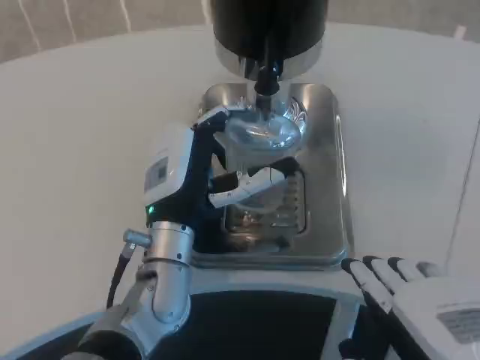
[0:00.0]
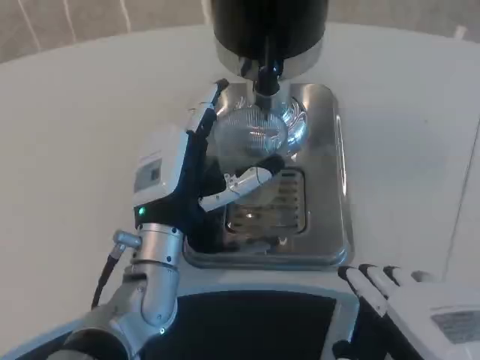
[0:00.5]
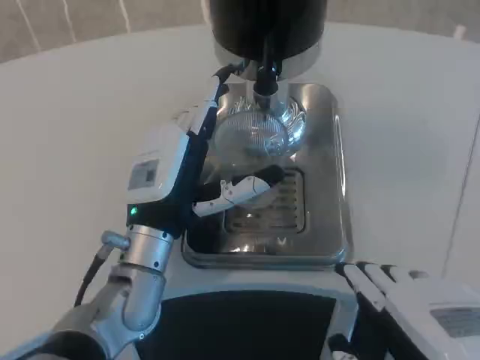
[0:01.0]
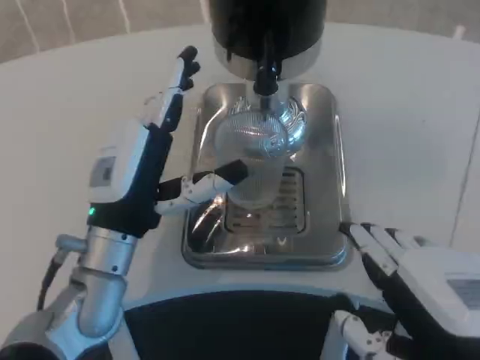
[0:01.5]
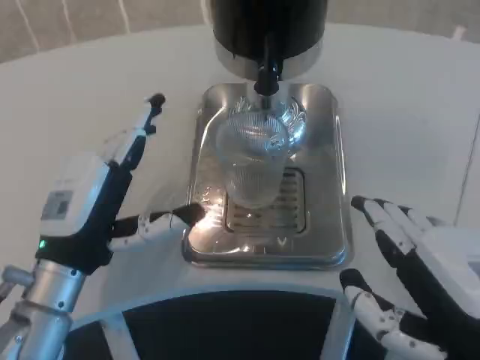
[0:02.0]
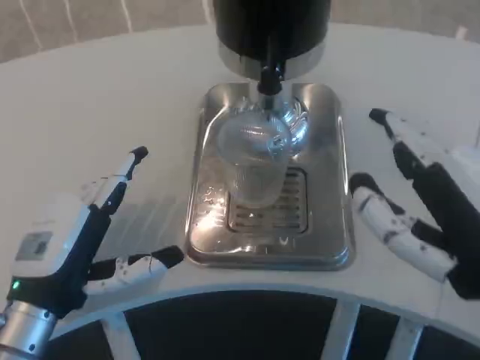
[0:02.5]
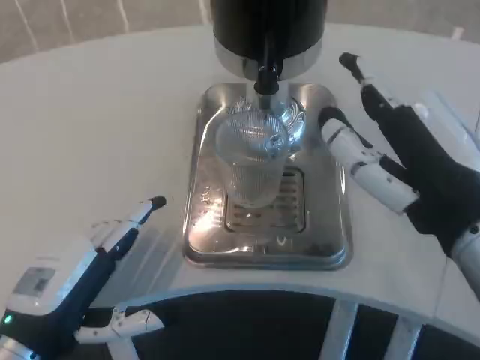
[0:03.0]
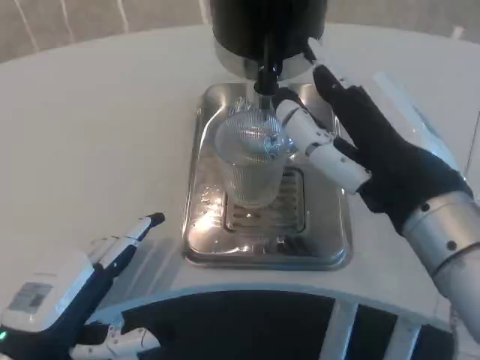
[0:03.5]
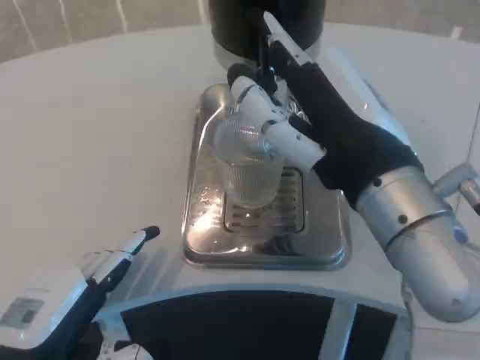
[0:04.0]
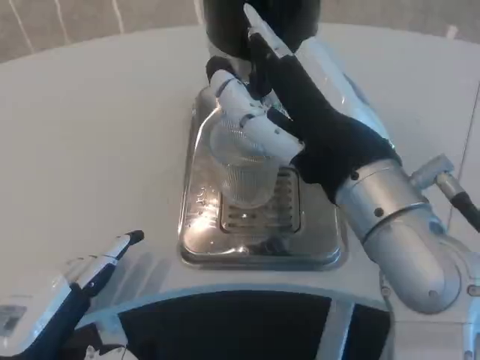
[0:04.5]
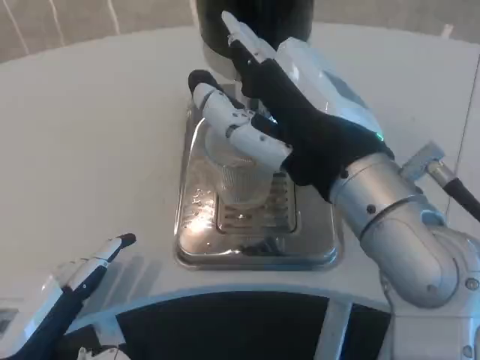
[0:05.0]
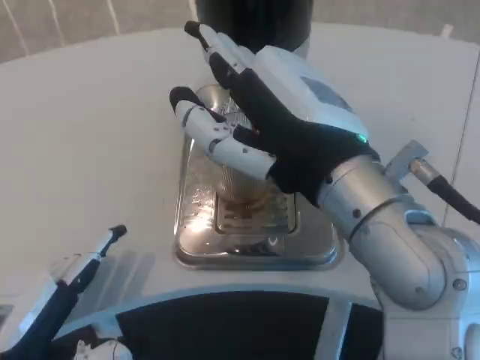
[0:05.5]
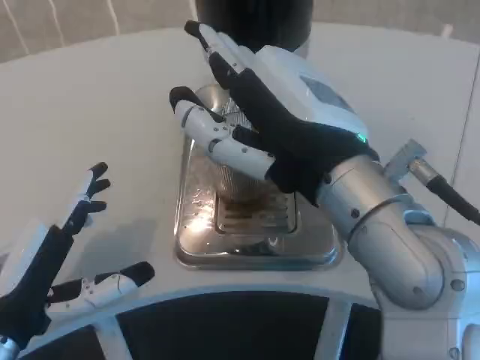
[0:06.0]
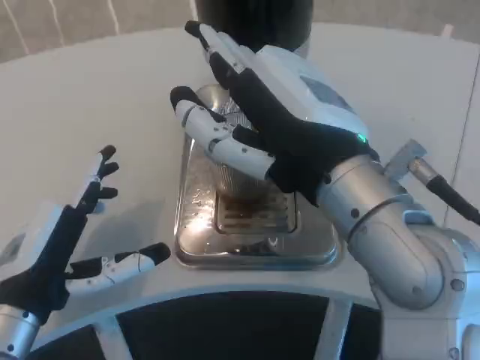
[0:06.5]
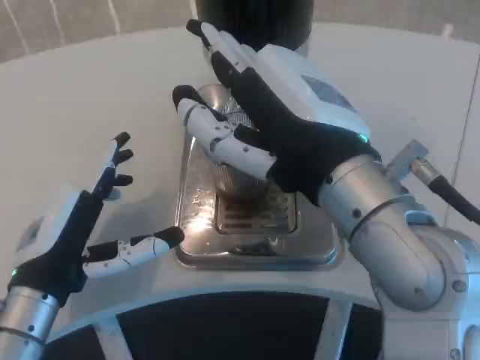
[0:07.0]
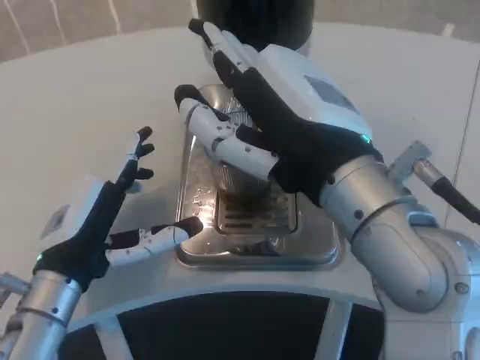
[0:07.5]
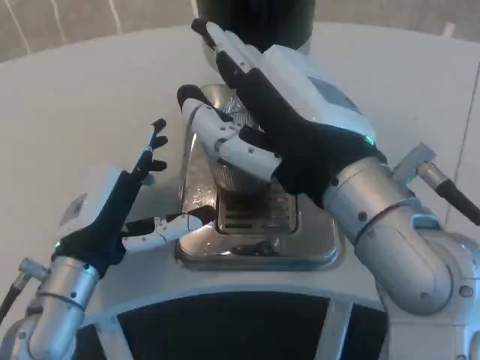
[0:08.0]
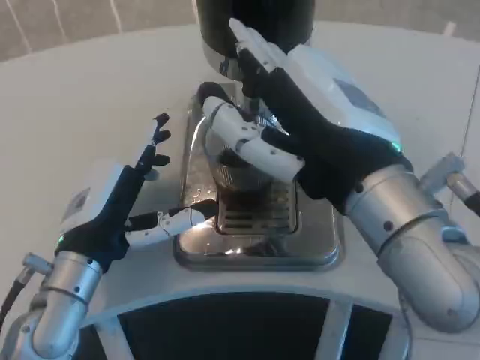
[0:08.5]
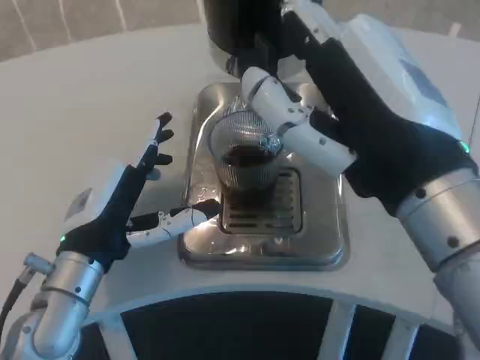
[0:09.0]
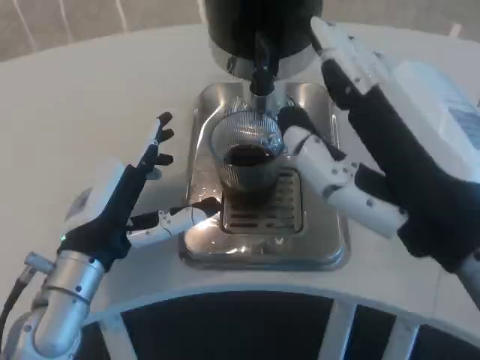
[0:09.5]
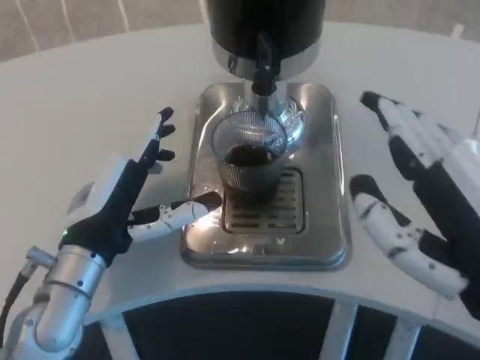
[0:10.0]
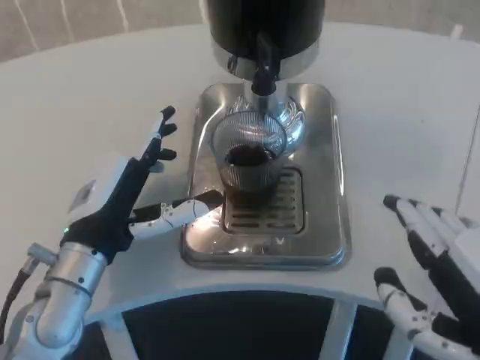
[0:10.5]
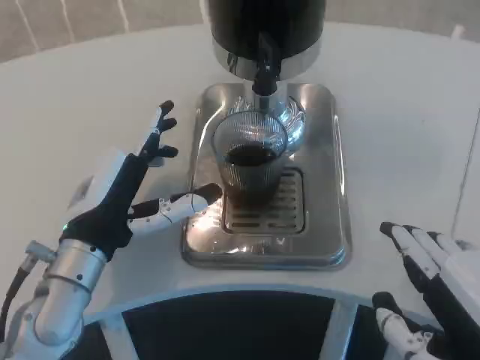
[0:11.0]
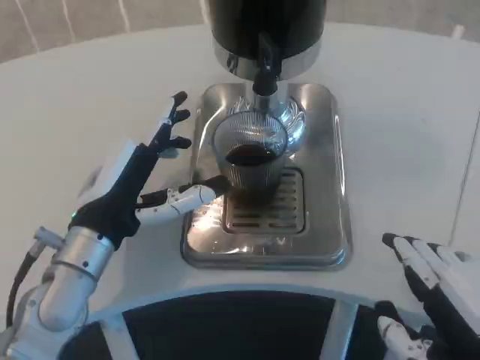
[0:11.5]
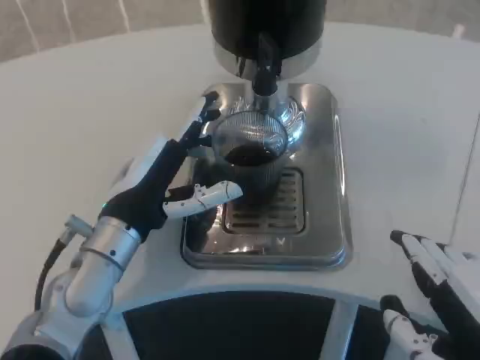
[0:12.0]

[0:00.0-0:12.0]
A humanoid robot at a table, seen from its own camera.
Task of the whole recording: Grasp the cup under the faucet to collect the drink, then remove the cup.
0:00.0 to 0:02.0: The left hand is displaced to the left by about 10 cm.
0:02.0 to 0:04.0: The left hand goes about 10 cm backward. The right hand is displaced forward, to the left and upward by approximately 15 cm.
0:06.0 to 0:08.0: The left hand heads forward and to the right, covering approximately 10 cm.
0:08.0 to 0:10.0: The right hand travels to the right and backward by roughly 15 cm.

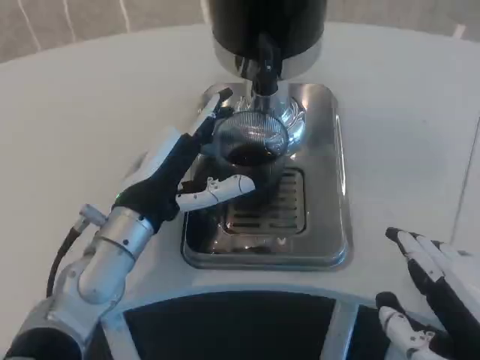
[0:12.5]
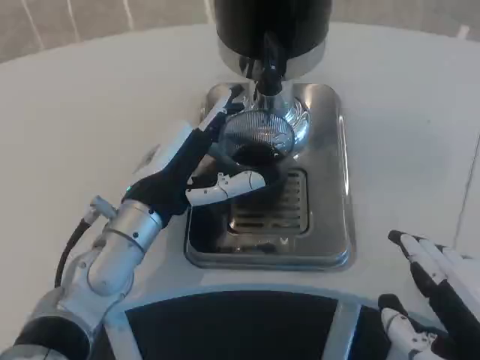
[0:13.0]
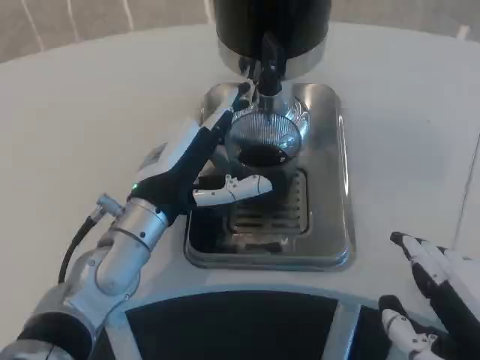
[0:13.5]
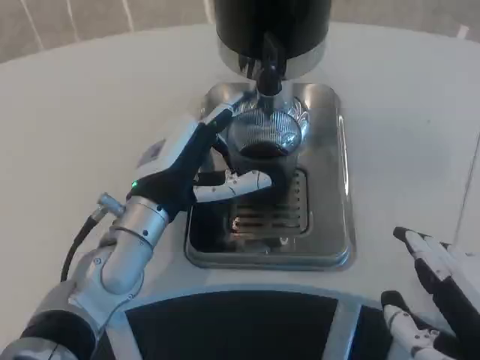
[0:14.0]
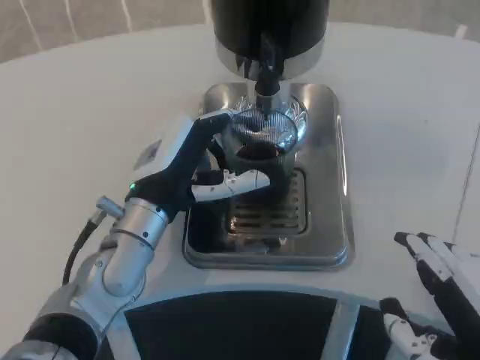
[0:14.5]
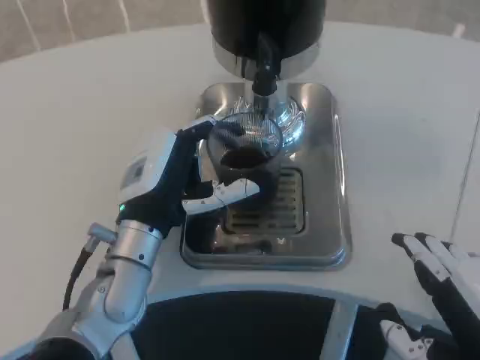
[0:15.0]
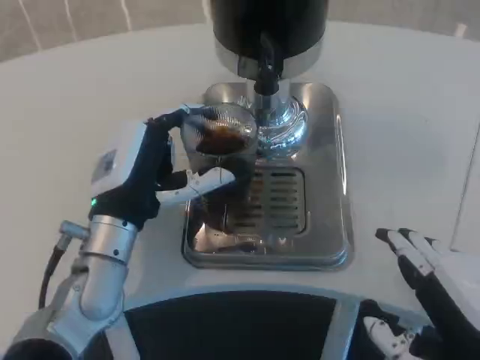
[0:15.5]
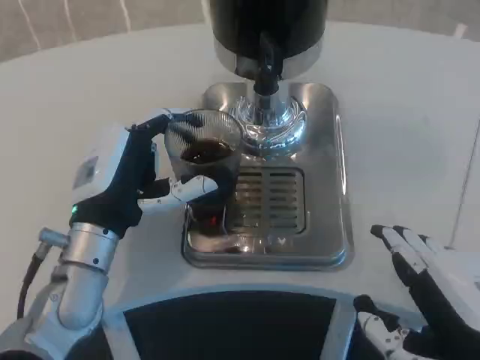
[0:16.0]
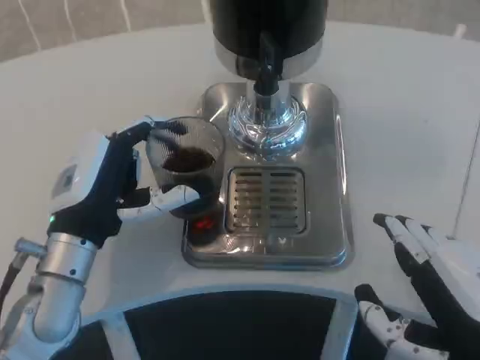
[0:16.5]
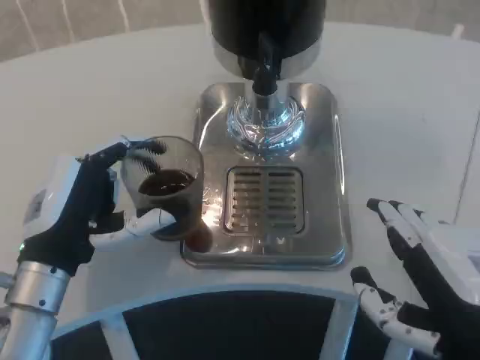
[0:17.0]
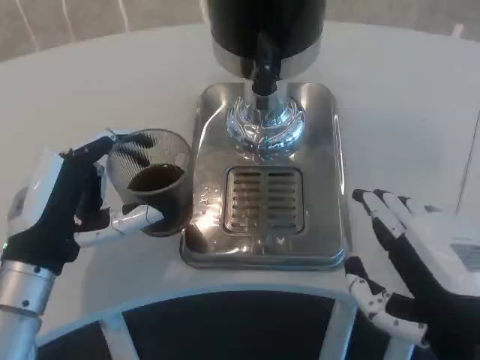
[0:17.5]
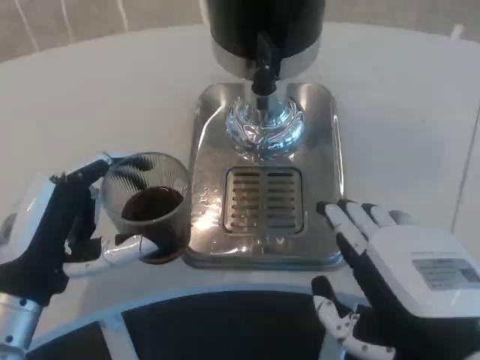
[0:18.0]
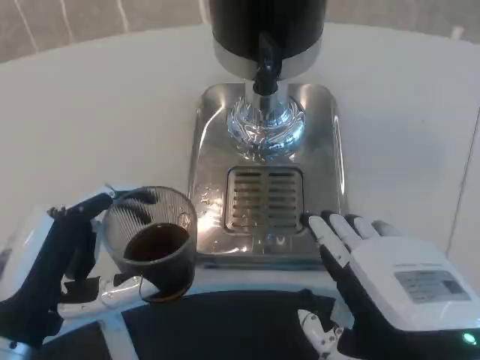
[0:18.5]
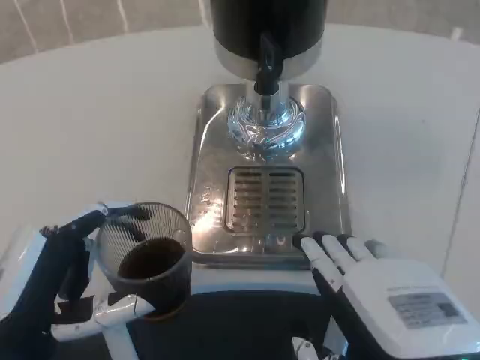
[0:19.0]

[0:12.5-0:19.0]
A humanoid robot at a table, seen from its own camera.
Task of the whole recording: Grasp the cup under the faucet to collect the drink, then remove the cup.
0:12.5 to 0:14.5: The hands move only a little.
0:14.5 to 0:17.0: The left hand heads to the left and backward, covering some 10 cm.
0:17.0 to 0:19.0: The left hand travels backward by roughly 10 cm.

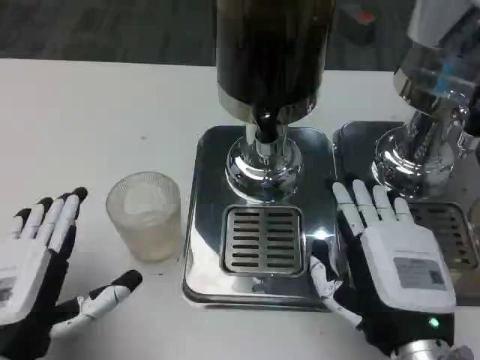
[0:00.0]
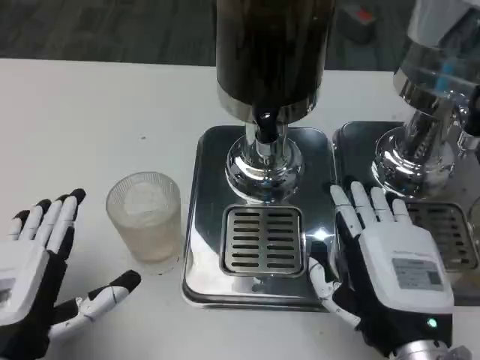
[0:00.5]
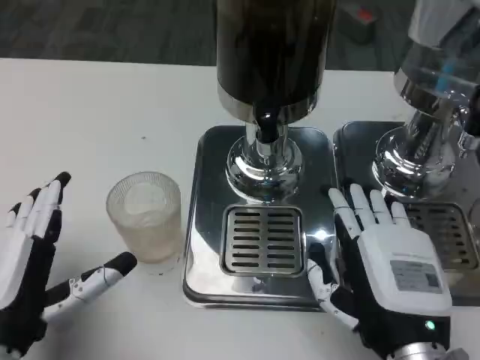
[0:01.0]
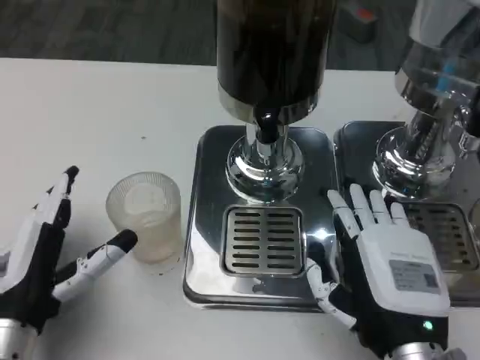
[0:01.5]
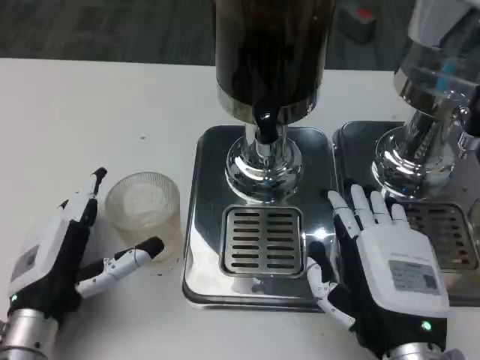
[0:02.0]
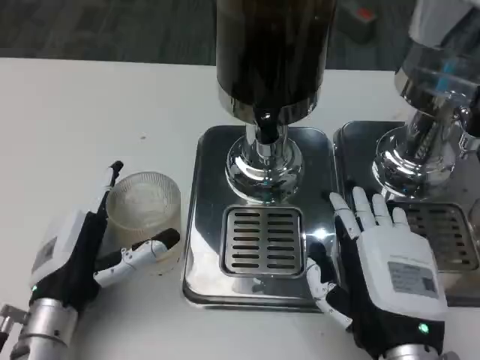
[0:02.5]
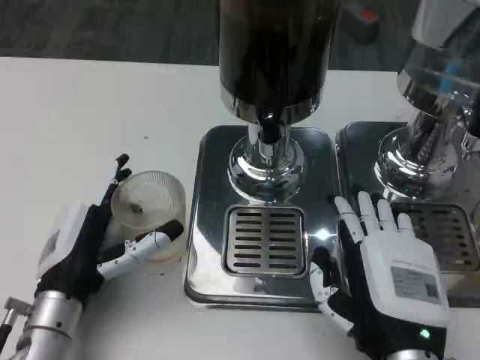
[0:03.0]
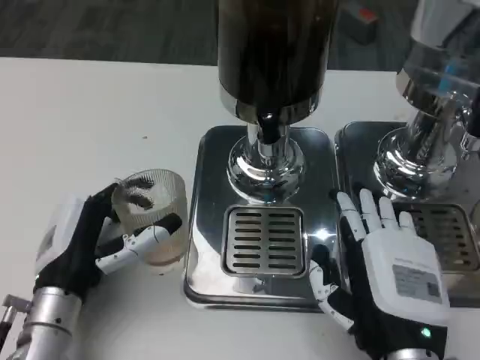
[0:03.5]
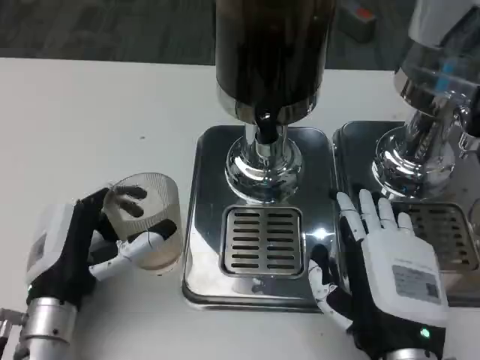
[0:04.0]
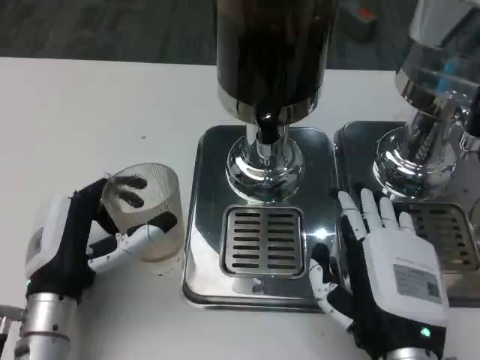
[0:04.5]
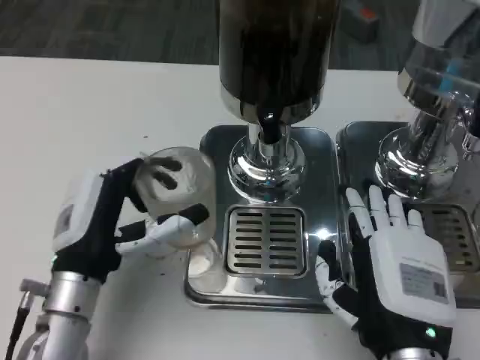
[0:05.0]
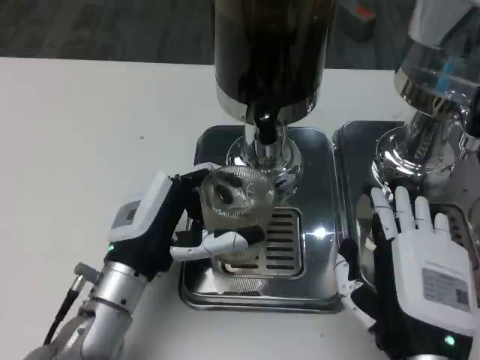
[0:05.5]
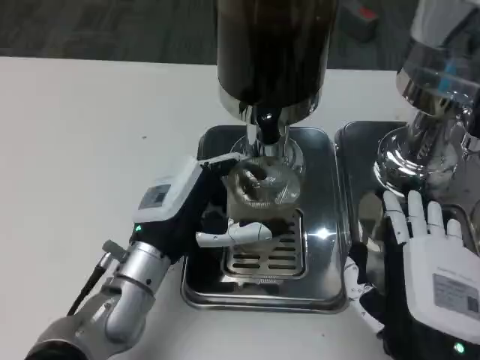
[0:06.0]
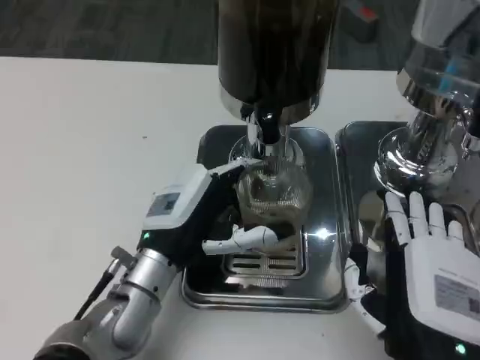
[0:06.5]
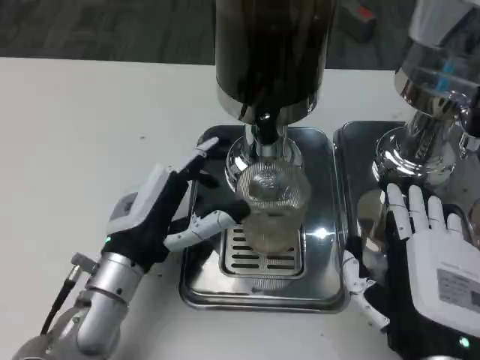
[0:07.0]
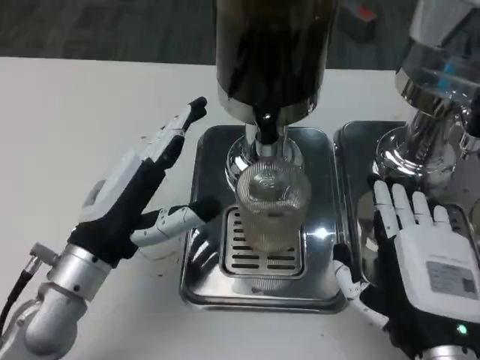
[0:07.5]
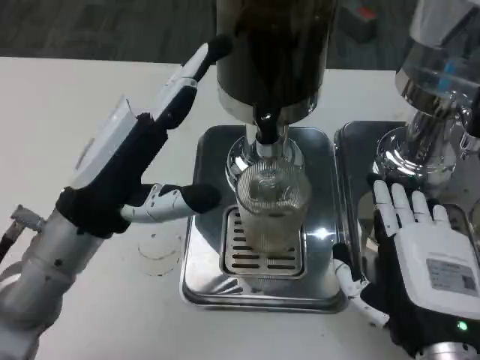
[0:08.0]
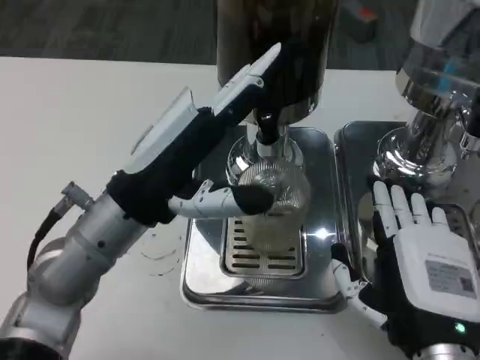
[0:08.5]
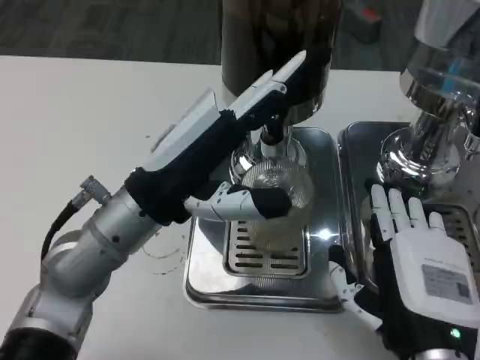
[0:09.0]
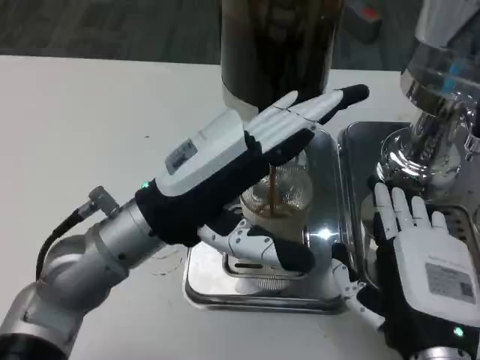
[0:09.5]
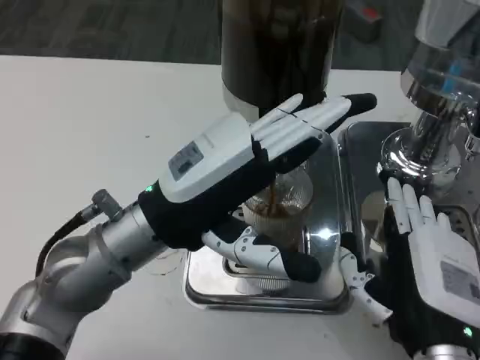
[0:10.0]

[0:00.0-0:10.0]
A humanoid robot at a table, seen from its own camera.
Task of the whole recording: Grasp the cup under the faucet to collect the drink, then remove the cup.
0:00.0 to 0:02.0: The left hand is displaced forward by roughly 5 cm.
0:02.0 to 0:04.0: There are only small adjustments of the hands.
0:04.0 to 0:06.0: The left hand travels to the right and forward by about 10 cm.
0:06.0 to 0:08.0: The left hand heads upward and to the left, covering about 10 cm.
